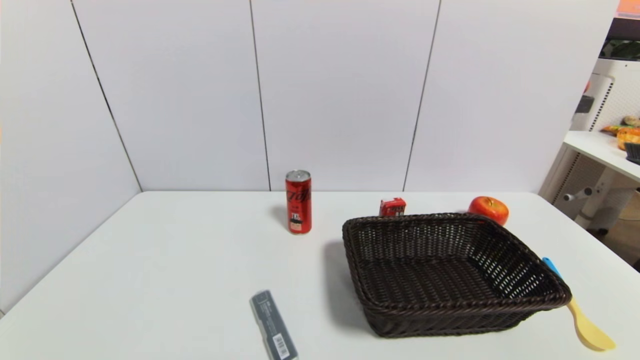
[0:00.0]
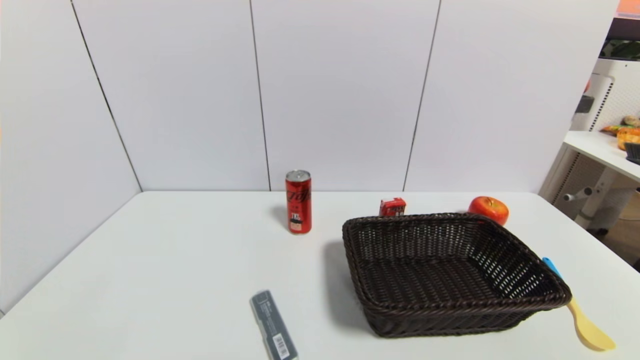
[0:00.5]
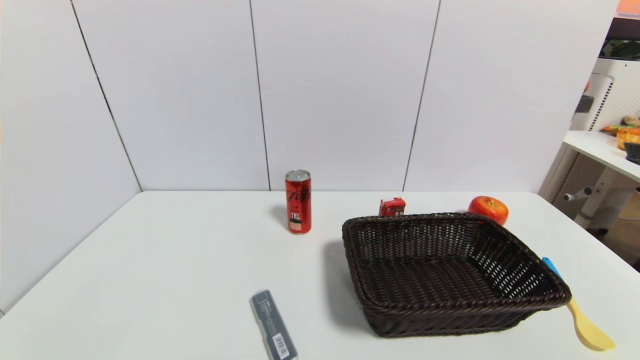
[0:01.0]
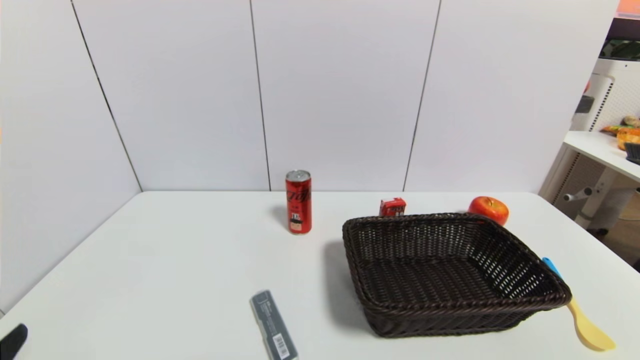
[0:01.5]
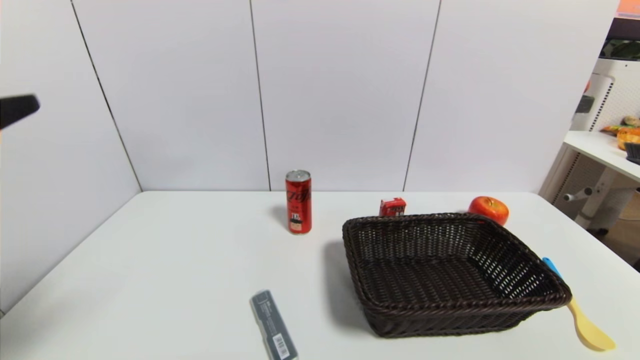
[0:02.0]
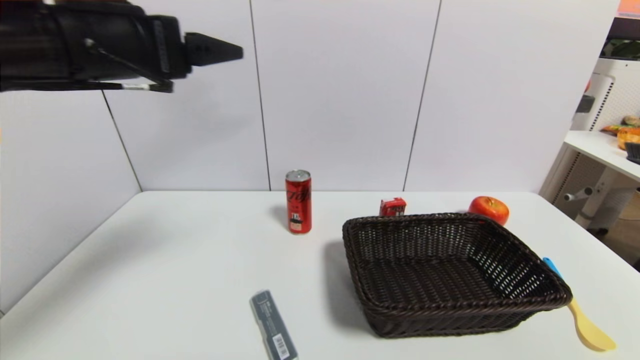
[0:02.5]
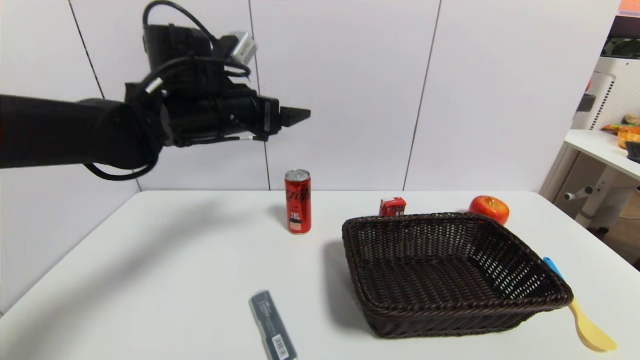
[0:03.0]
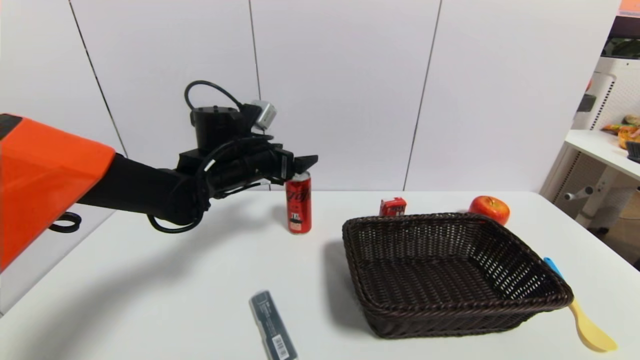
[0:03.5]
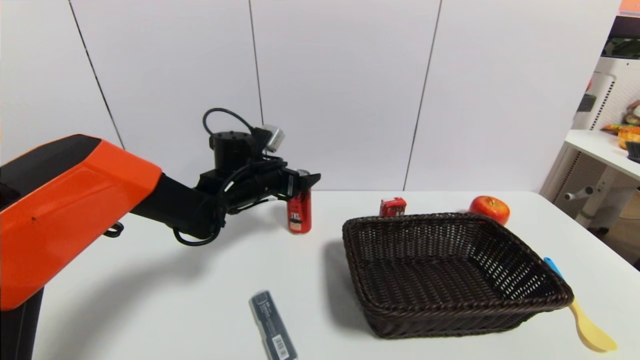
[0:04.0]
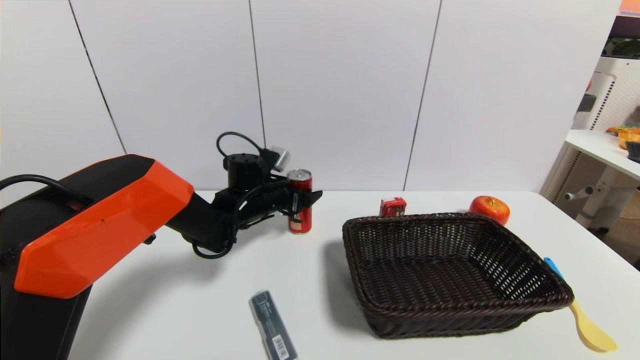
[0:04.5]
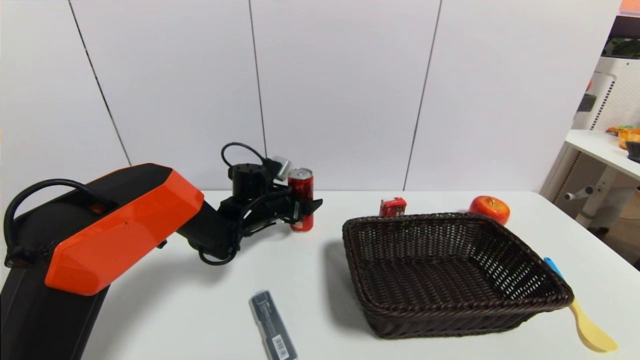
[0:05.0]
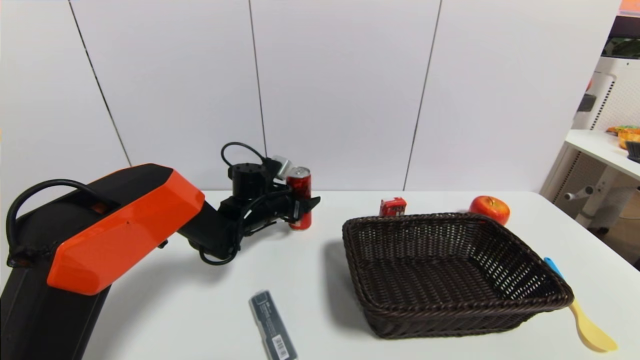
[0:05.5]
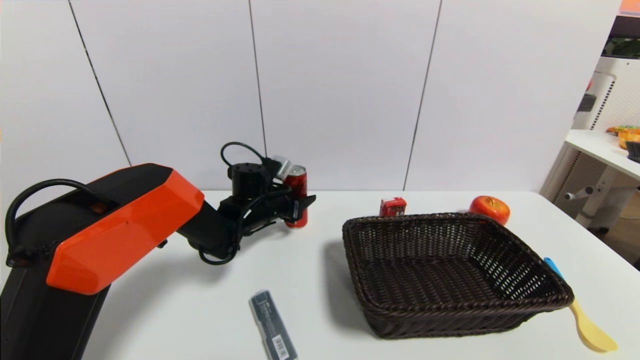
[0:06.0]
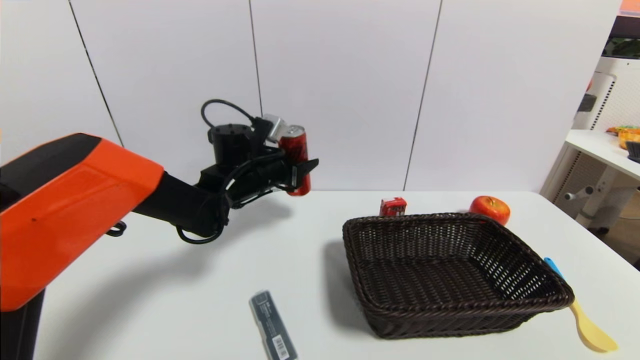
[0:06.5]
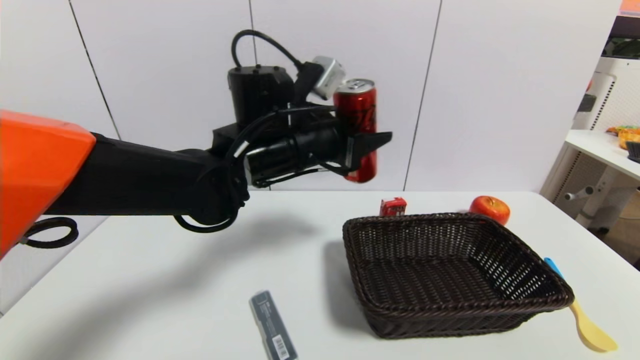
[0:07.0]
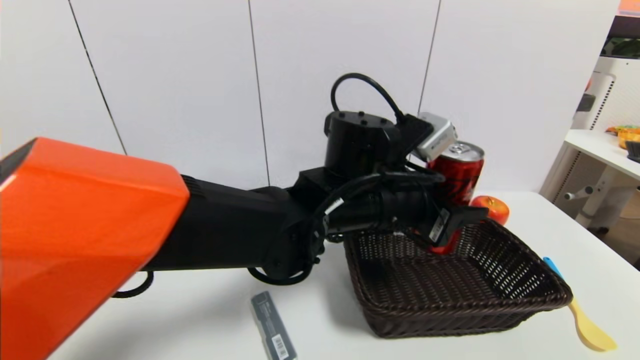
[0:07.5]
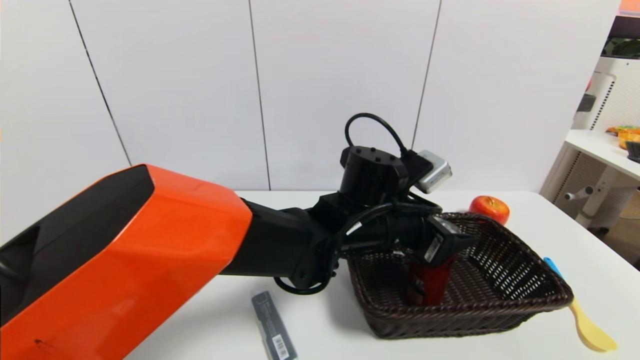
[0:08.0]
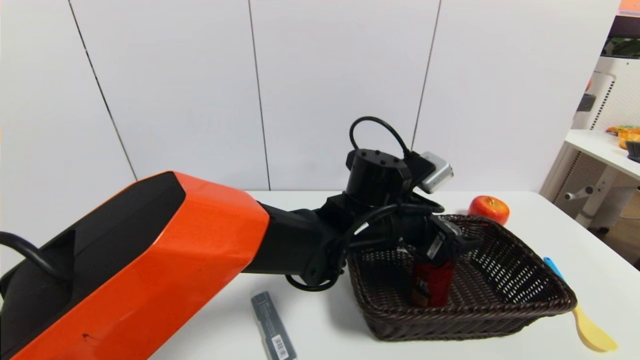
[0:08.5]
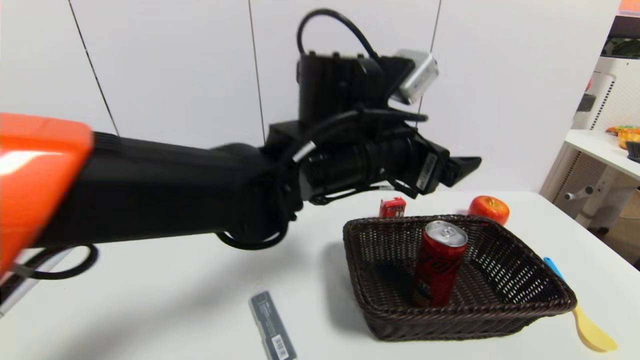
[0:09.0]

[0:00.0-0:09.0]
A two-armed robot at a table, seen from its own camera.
Task of the whole recording: use a gripper to pick the target object and place on the brown basket.
Step, 0:00.0 to 0:05.5: Grasp the coke with the left gripper.
Step, 0:06.0 to 0:09.0: Place the coke into the basket with the left gripper.
0:00.0 to 0:02.0: The left gripper moves upward and forward, approximately 30 cm.
0:02.0 to 0:04.5: The left gripper travels forward, downward and to the right by roughly 40 cm.
0:04.5 to 0:07.0: The left gripper moves upward, backward and to the right, approximately 20 cm, and closes up.
0:07.0 to 0:09.0: The left gripper moves to the right, roughly 5 cm, reaches some 10 cm downward, then returns, and opens up.

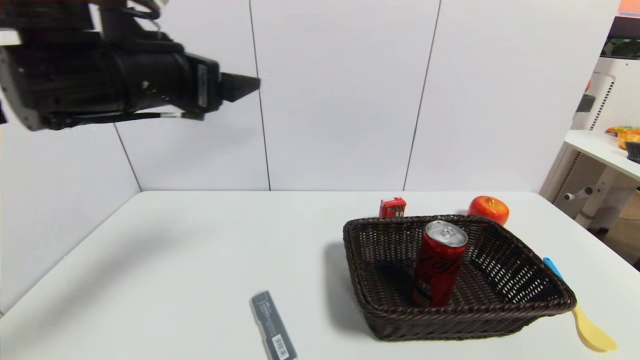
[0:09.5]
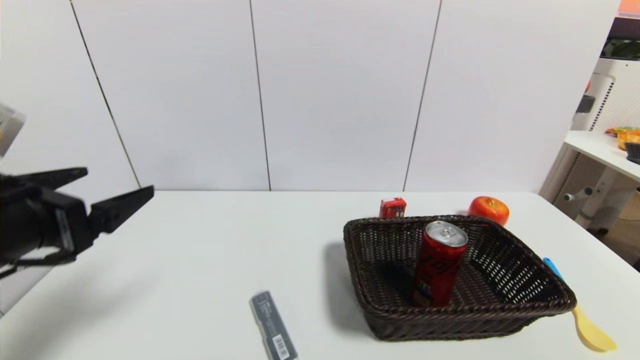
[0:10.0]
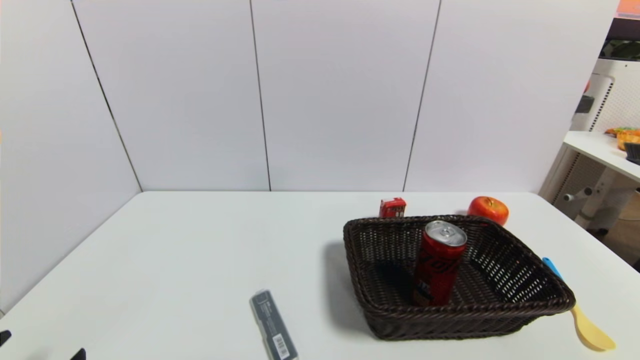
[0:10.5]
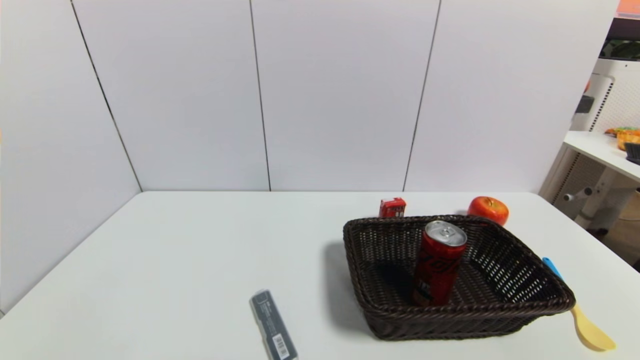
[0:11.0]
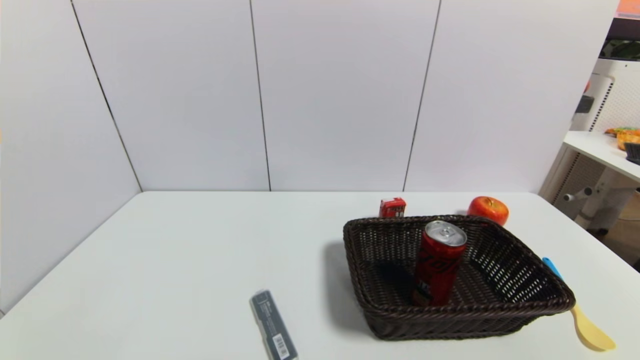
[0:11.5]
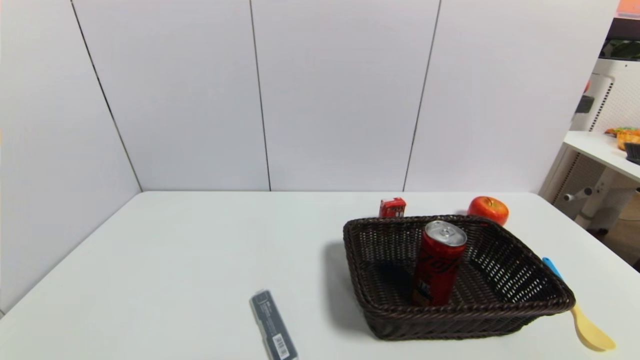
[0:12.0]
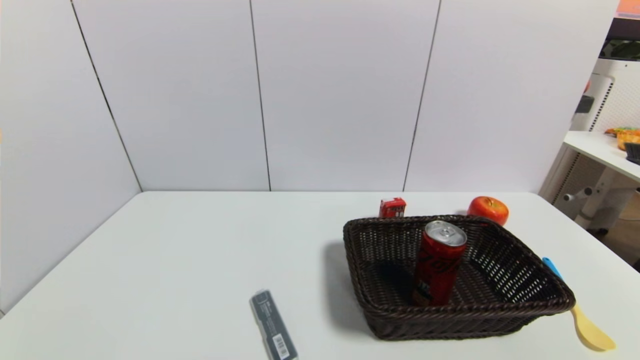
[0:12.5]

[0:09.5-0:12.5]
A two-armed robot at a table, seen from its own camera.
Task of the whole recording: use a gripper to pick the target object and place on the brown basket.
0:09.5 to 0:11.0: The left gripper travels downward, backward and to the left by roughly 40 cm.
